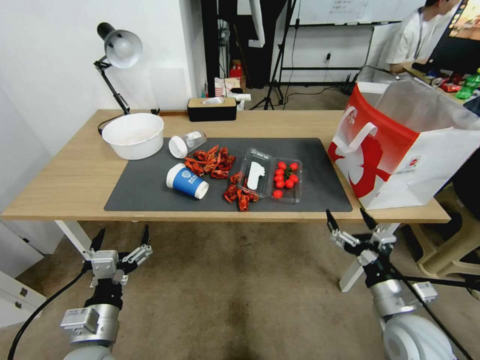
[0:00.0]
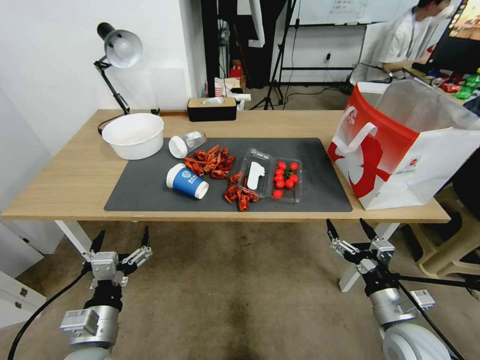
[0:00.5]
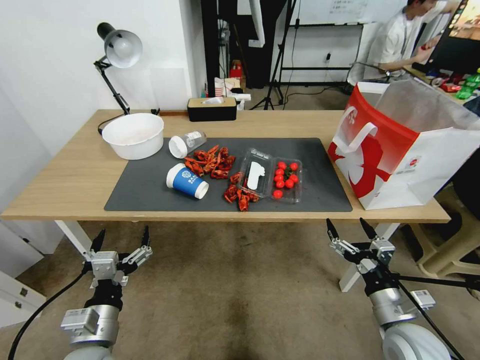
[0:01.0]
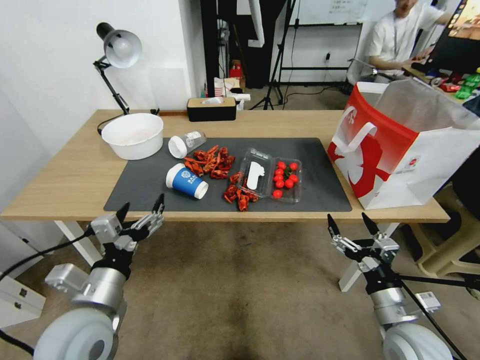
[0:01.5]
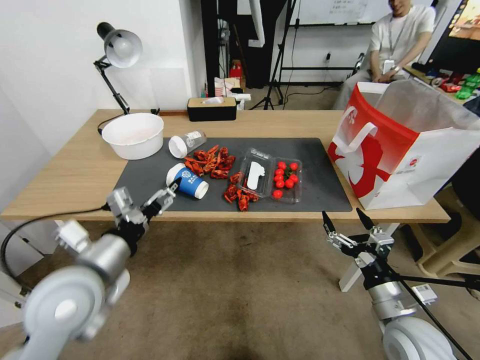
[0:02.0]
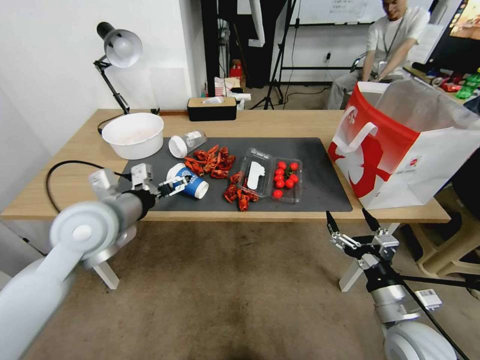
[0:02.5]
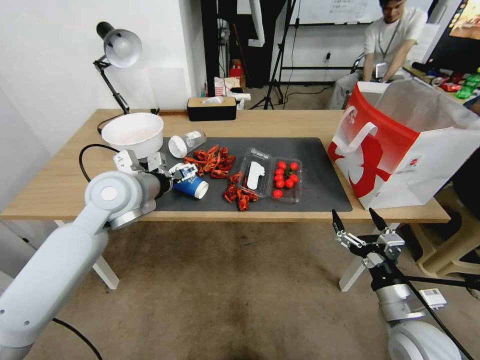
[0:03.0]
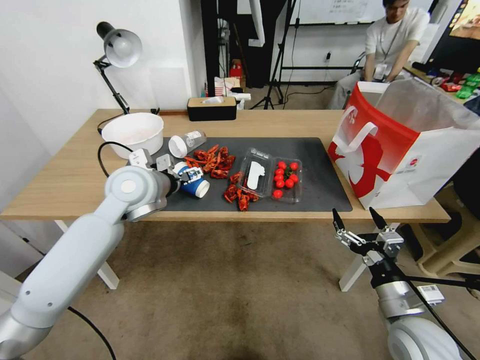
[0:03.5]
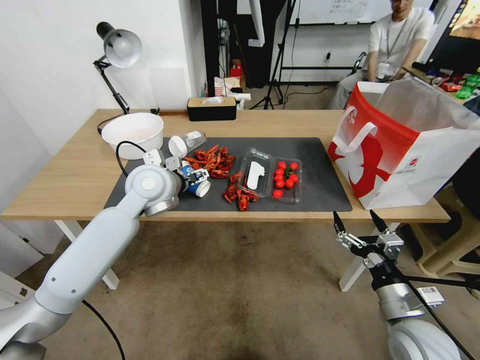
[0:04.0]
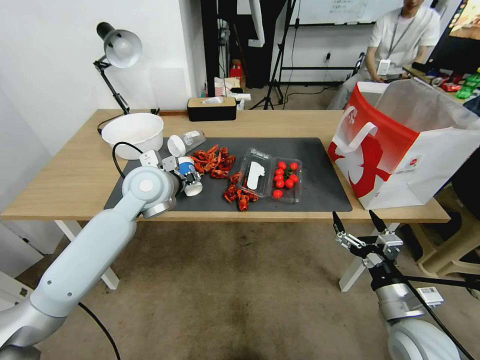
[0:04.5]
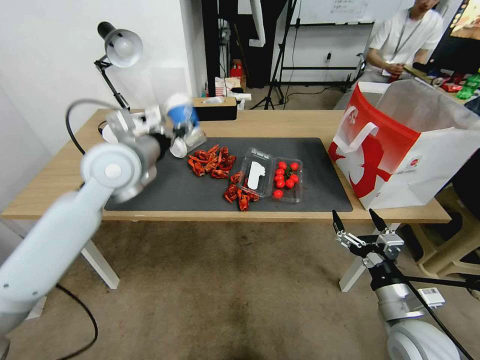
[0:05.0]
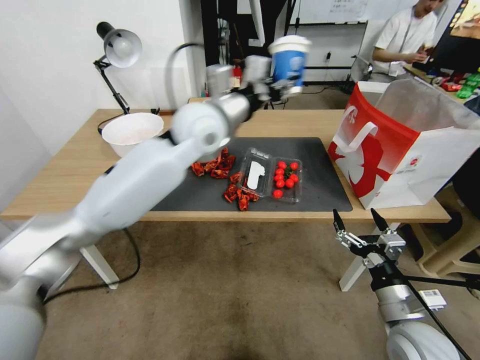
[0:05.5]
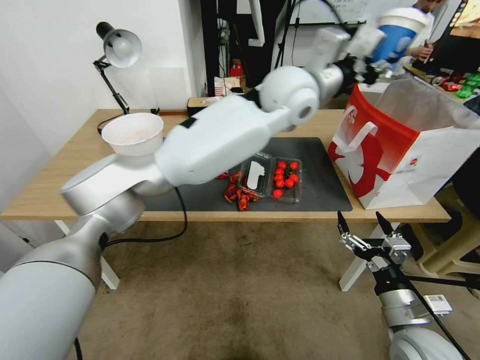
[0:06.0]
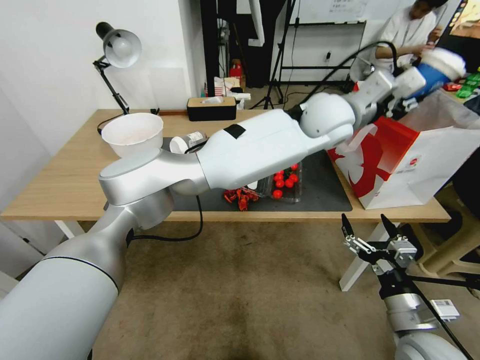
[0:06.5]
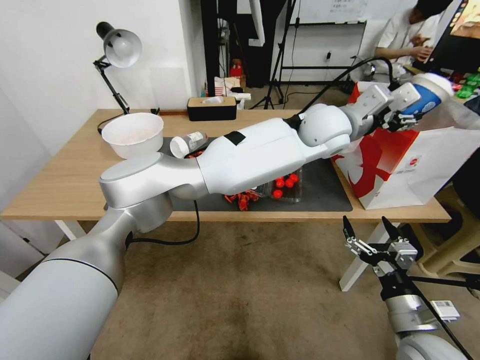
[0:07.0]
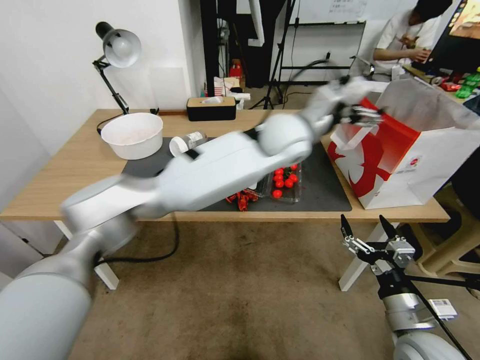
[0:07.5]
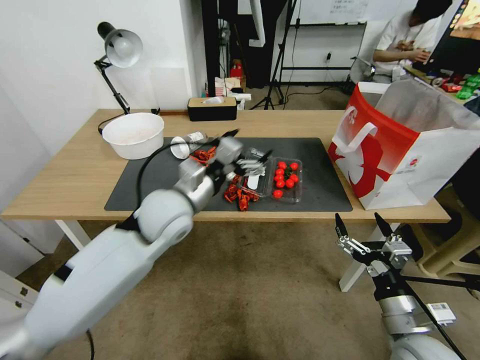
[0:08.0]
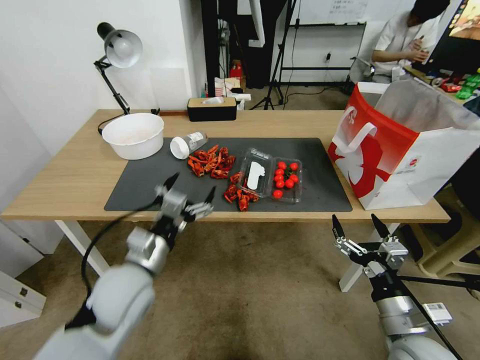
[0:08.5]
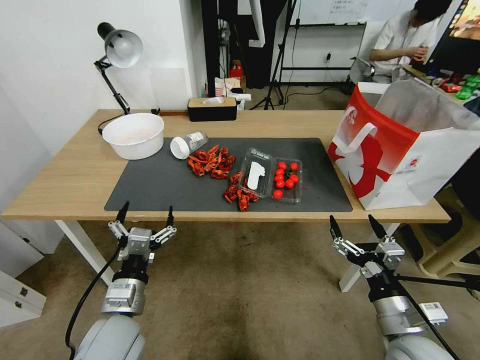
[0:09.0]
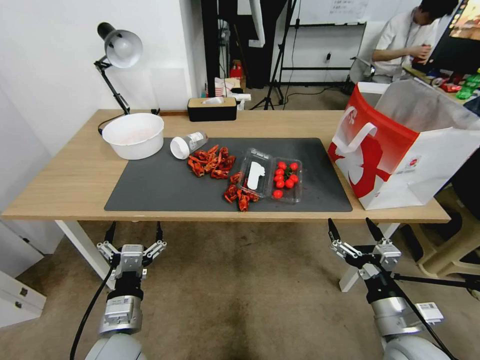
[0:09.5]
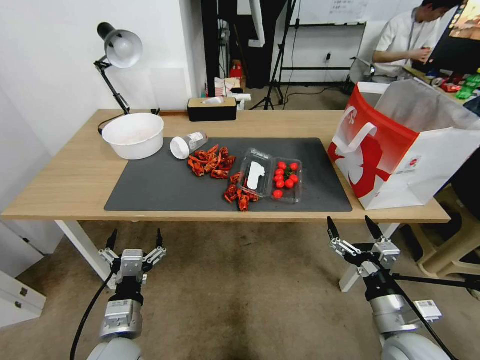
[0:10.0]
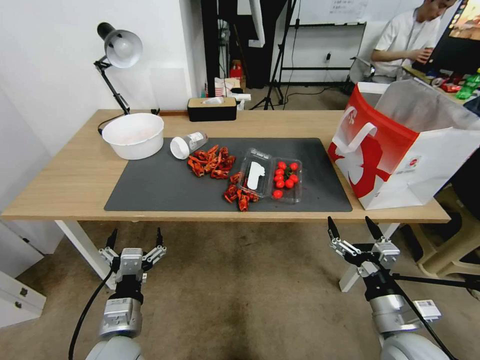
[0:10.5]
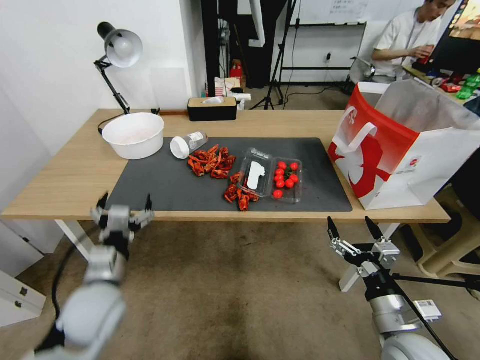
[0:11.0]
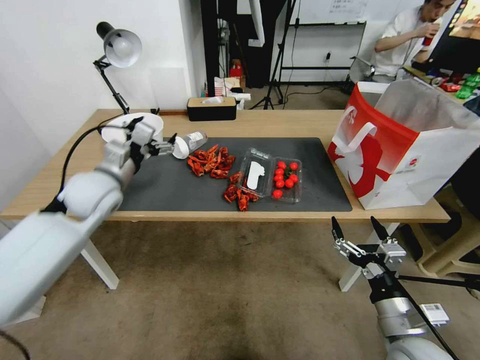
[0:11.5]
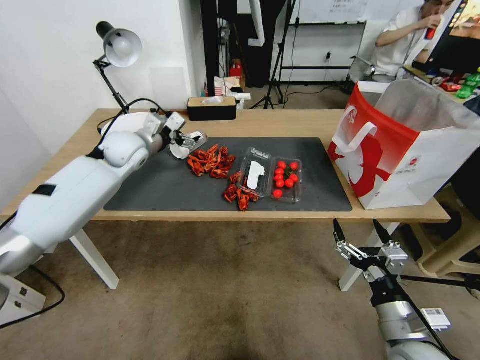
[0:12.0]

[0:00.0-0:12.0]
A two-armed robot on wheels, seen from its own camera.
0:00.0 to 0:02.0: The left gripper is displaced upward and forward by some 15 cm.
0:02.0 to 0:04.0: The left gripper goes about 20 cm forward.
0:04.0 to 0:06.0: The left gripper is displaced to the right and upward by approximately 30 cm, and closes.
0:06.0 to 0:08.0: The left gripper moves to the left, downward and backward, some 30 cm, and opens up.
0:08.0 to 0:10.0: The left gripper shifts approximately 25 cm backward and downward.
0:10.0 to 0:12.0: The left gripper shifts approximately 40 cm forward and upward.

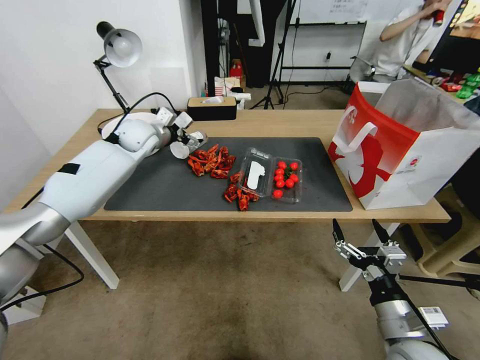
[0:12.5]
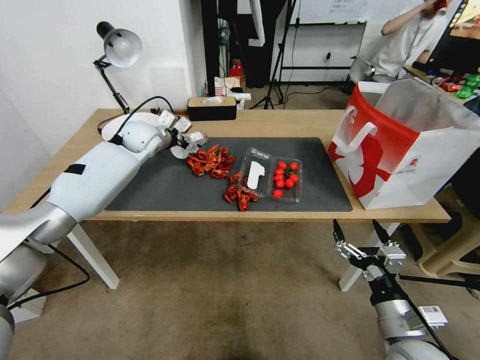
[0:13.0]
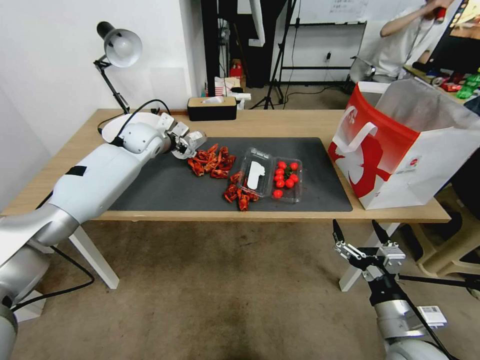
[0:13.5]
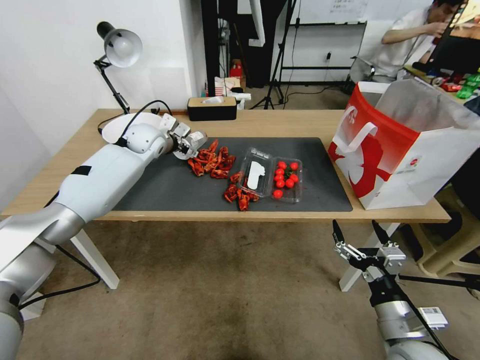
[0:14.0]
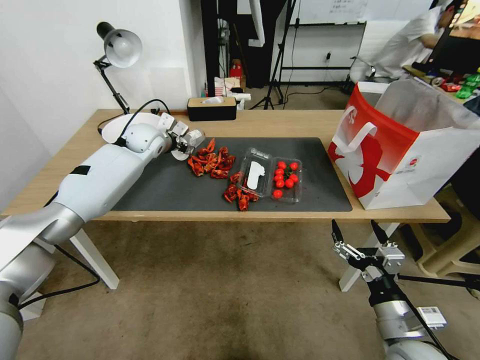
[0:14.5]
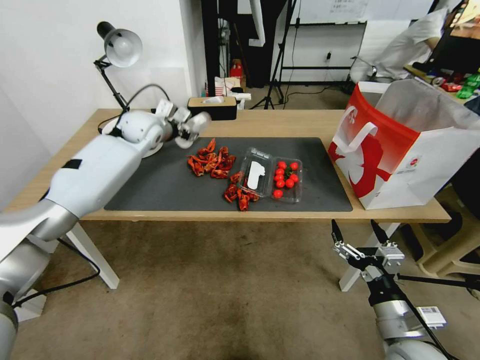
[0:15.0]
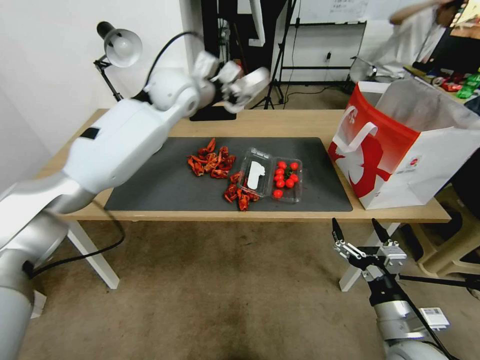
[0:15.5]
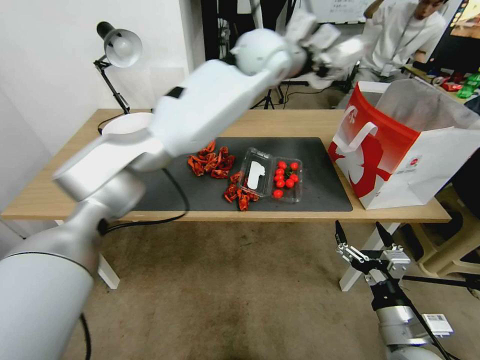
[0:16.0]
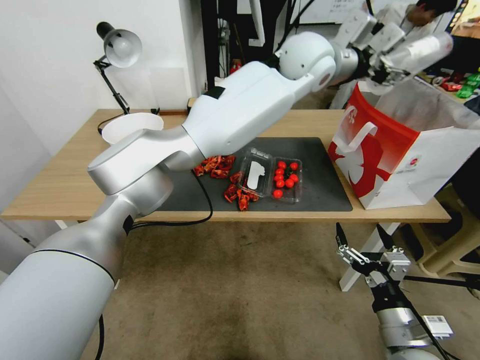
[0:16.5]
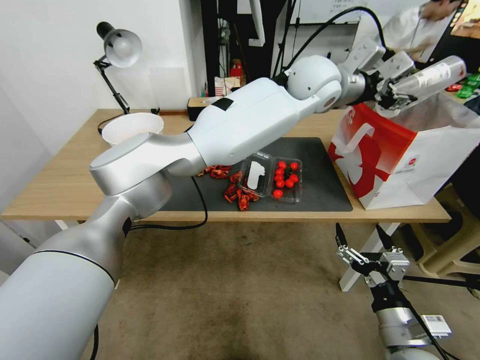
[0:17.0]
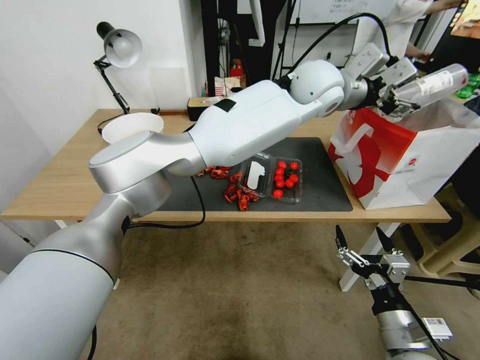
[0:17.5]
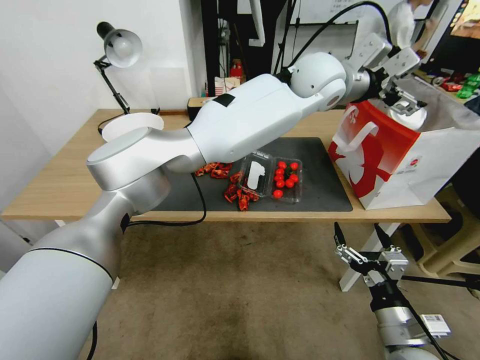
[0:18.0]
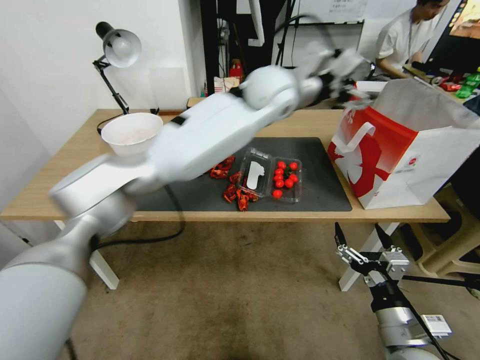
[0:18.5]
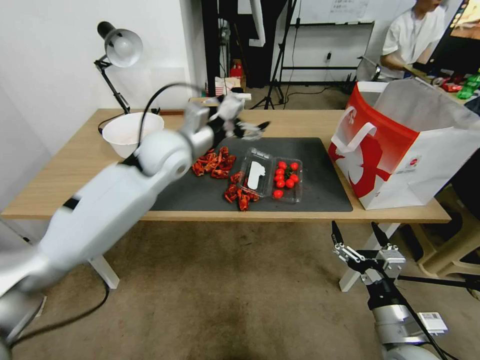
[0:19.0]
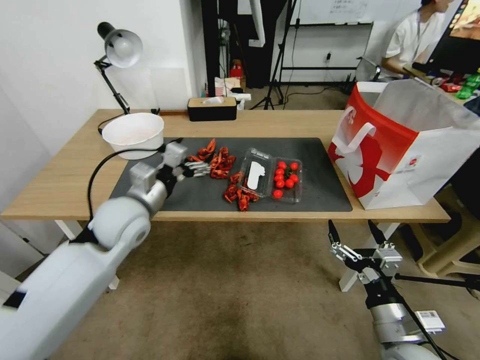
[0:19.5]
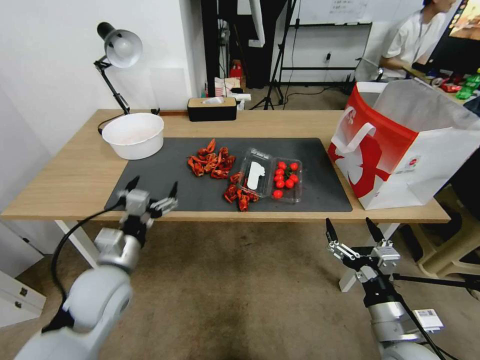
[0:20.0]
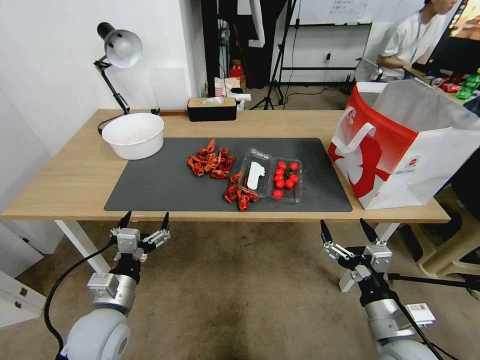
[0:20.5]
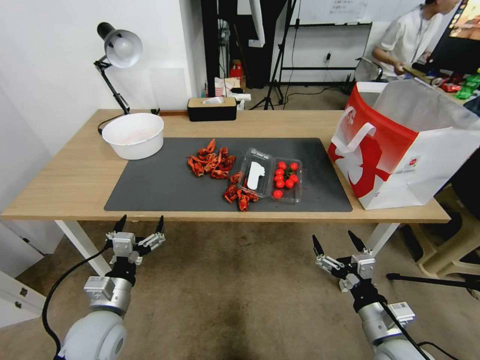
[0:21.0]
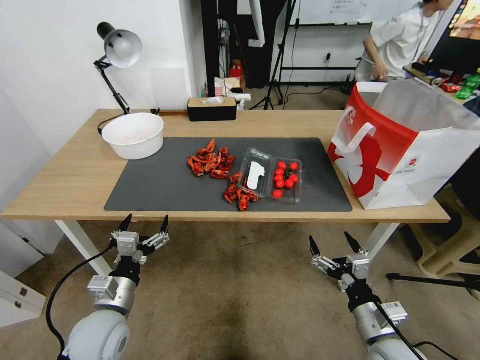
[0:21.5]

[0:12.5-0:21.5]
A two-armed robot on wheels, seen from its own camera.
0:12.5 to 0:14.5: The left gripper closes its fingers.
0:14.5 to 0:17.0: The left gripper shifts roughly 40 cm to the right and upward.
0:17.0 to 0:19.5: The left gripper shifts approximately 50 cm to the left, downward and backward, and opens.
0:19.5 to 0:21.5: The left gripper travels downward and backward by roughly 20 cm.

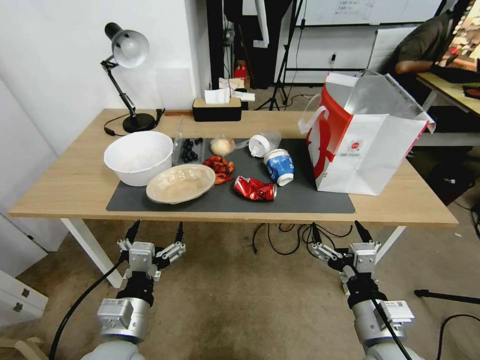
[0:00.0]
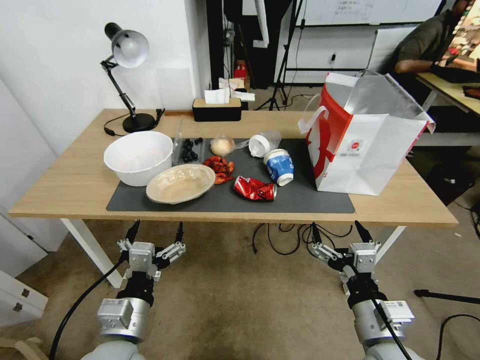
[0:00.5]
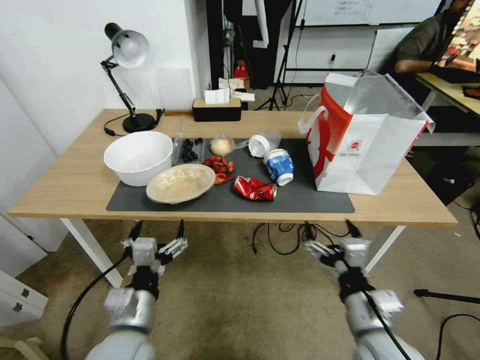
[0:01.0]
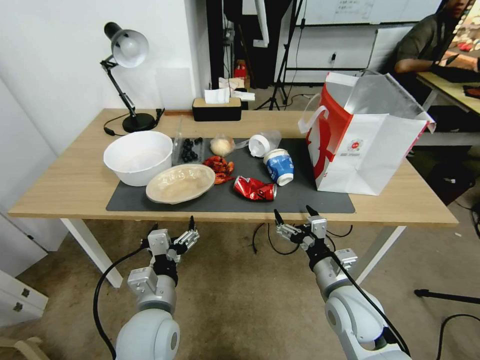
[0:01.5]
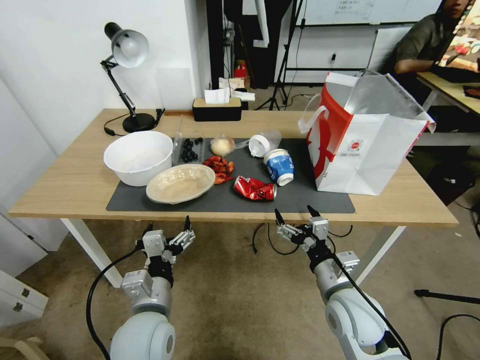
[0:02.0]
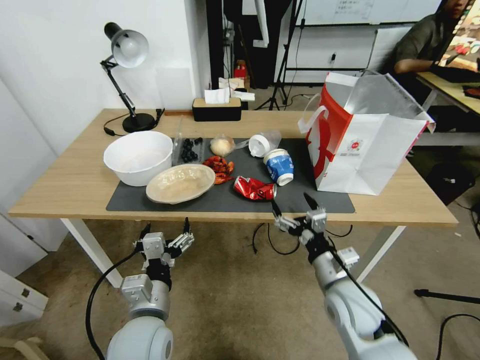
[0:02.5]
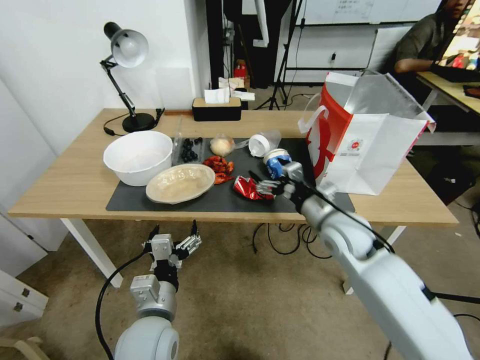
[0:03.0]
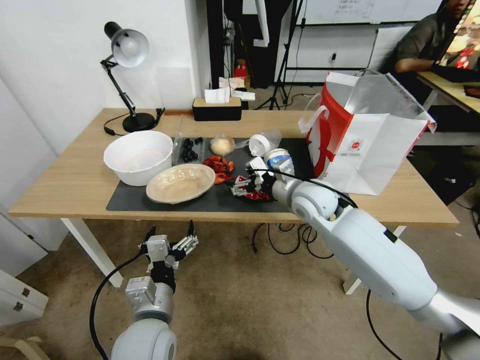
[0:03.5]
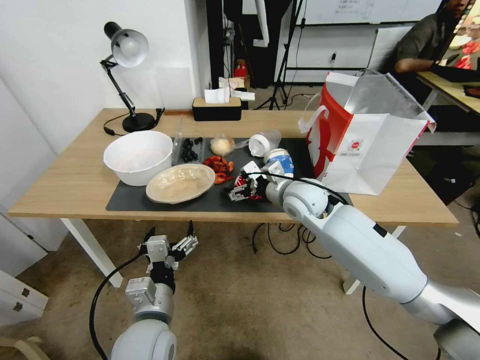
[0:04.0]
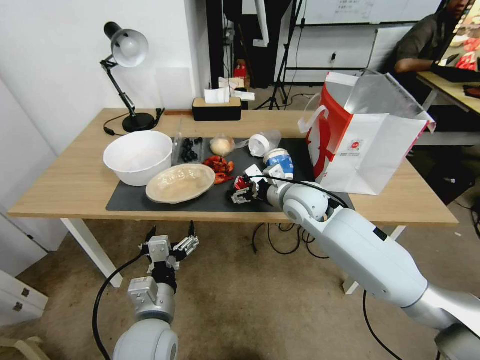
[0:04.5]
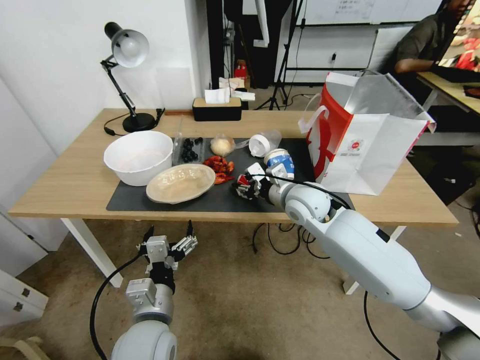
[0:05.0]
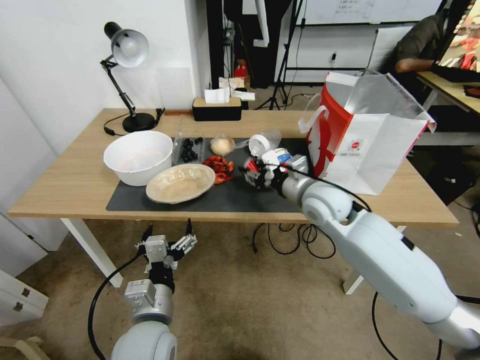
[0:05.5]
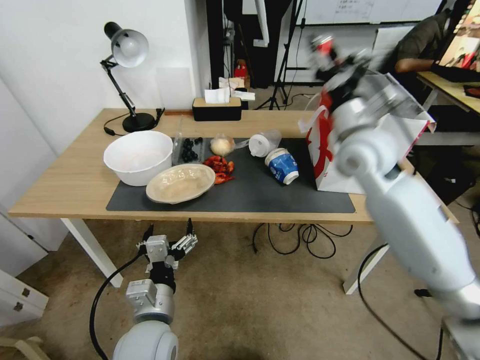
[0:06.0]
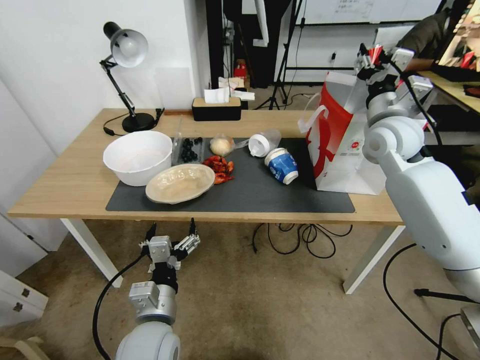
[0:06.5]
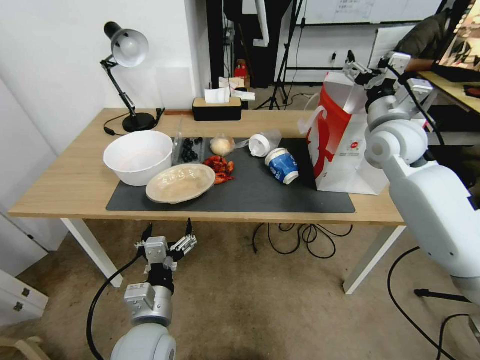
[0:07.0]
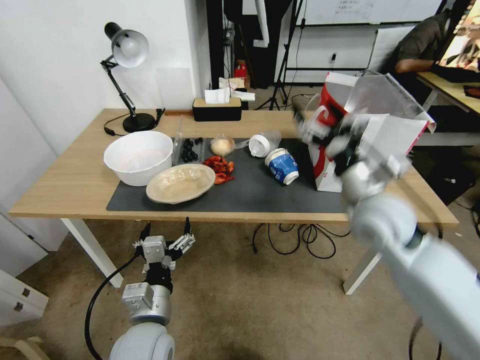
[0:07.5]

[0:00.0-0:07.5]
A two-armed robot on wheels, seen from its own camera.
0:02.0 to 0:04.0: The right gripper travels forward and upward by roughly 25 cm.
0:04.0 to 0:05.5: The right gripper closes up.
0:05.5 to 0:07.5: The right gripper is displaced to the right and backward by about 10 cm, and opens its fingers.
